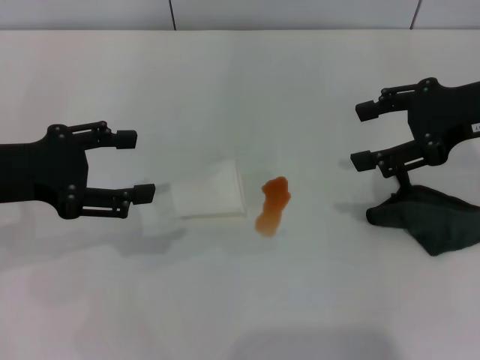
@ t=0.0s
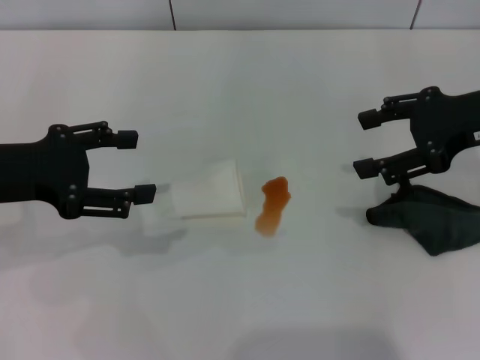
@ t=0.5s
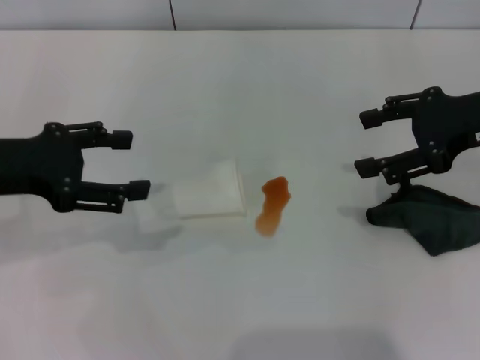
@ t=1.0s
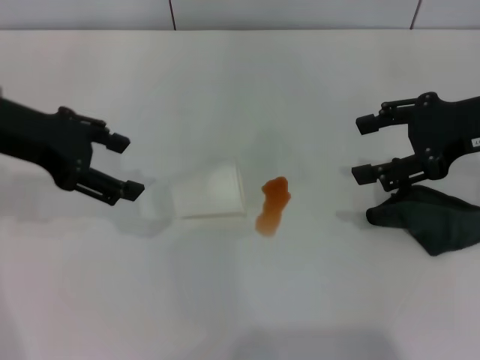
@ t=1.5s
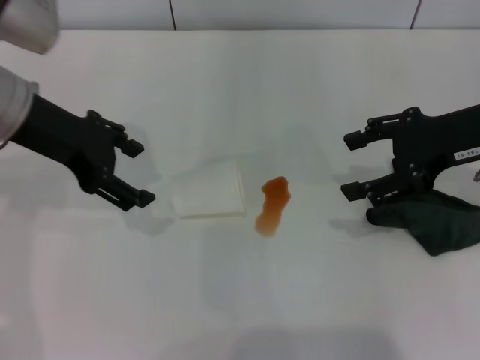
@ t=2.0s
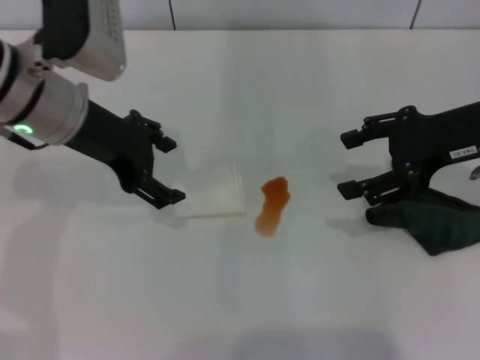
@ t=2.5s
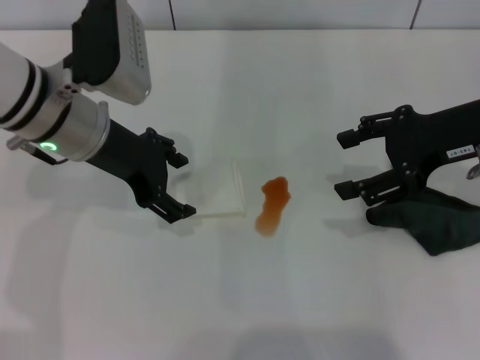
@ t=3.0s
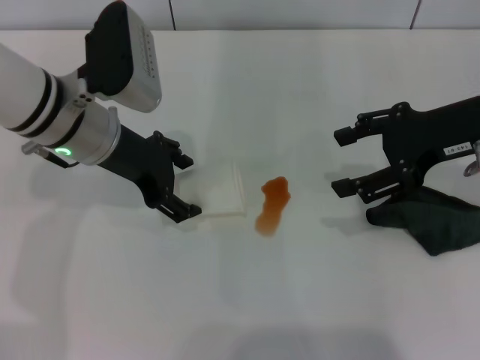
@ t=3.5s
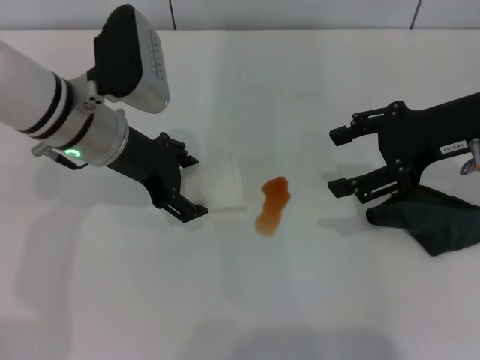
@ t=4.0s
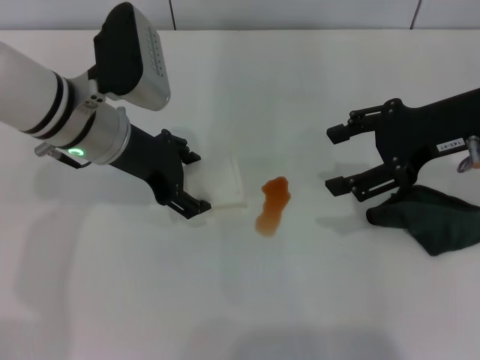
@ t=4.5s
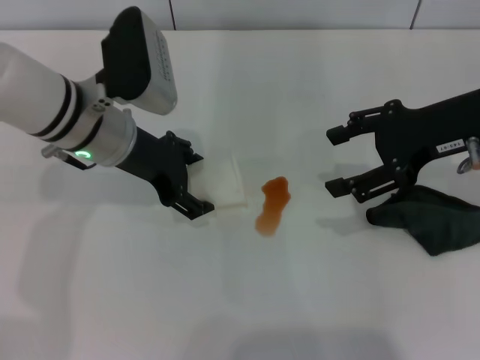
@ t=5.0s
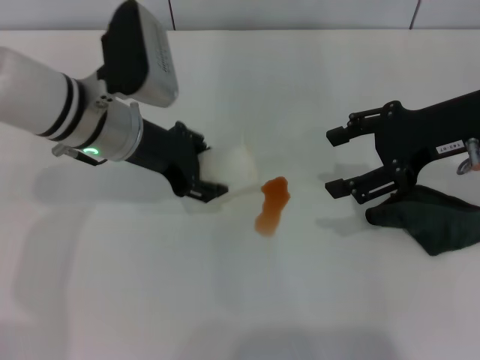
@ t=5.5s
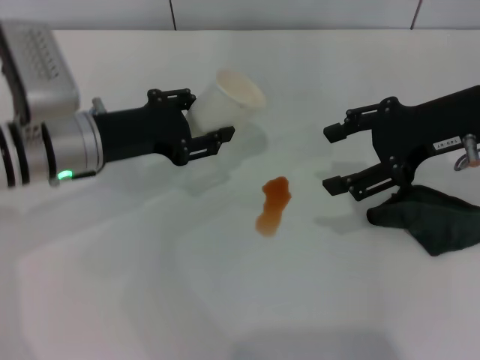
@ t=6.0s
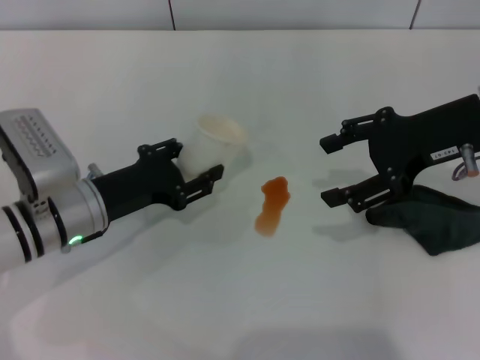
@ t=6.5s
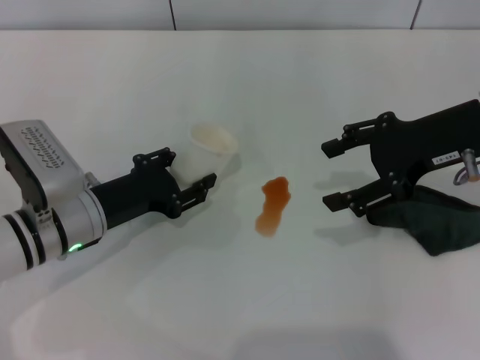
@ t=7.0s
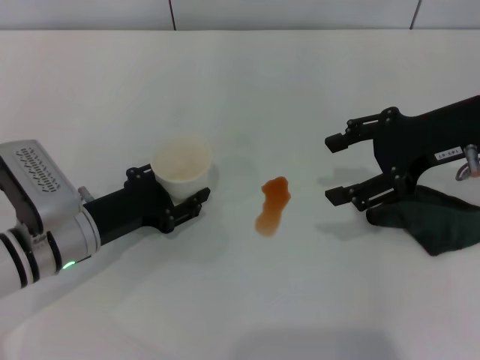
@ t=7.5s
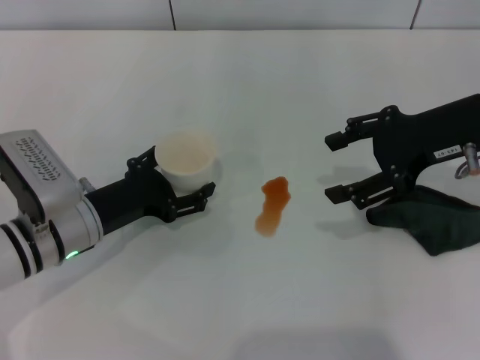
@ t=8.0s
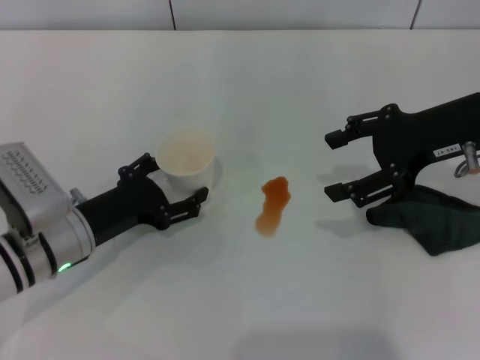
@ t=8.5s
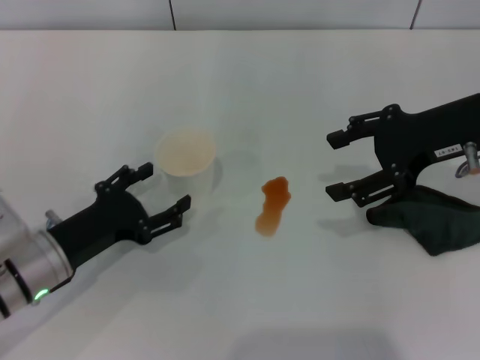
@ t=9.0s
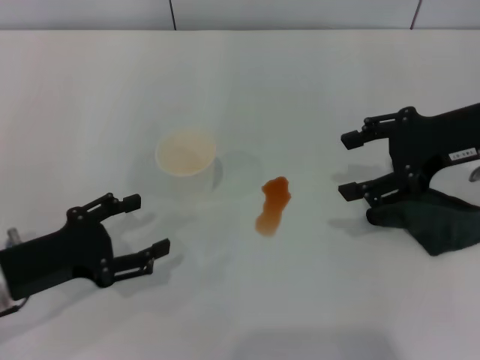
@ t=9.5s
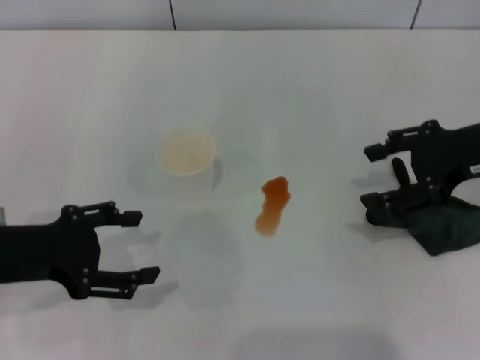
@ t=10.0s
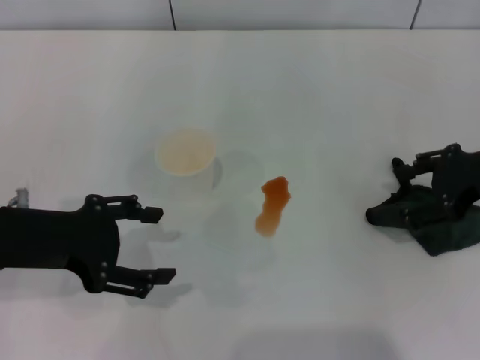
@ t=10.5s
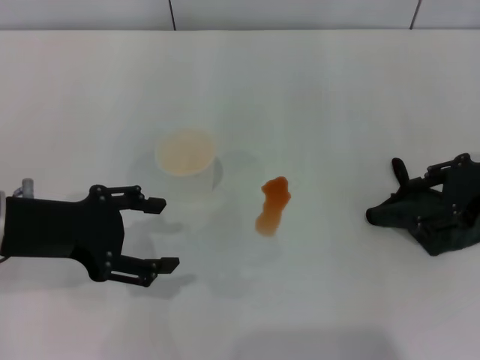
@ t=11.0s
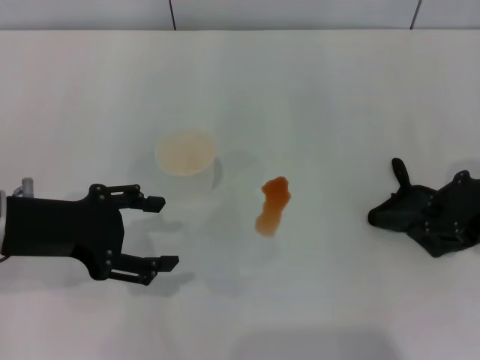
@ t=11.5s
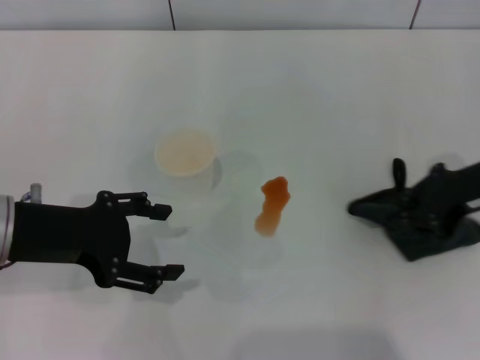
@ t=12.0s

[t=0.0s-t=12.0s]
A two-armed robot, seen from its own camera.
Step, t=0.0s to t=5.0s: Grasp the paper cup with the left gripper.
Step, t=5.5s to t=9.0s: Stand the paper cup upright with the left gripper.
Step, t=9.5s to t=11.5s: Grasp the rag with the right gripper.
t=0.0s to t=2.0s: The left gripper is displaced forward and to the right by roughly 10 cm.
t=2.0s to t=4.0s: The left gripper goes some 10 cm downward and to the right.
t=4.0s to t=6.0s: The left gripper ends up approximately 5 cm from where it was, and closes its fingers.
t=6.0s to t=8.0s: The left gripper shifts roughly 10 cm downward and backward, and opens its fingers.
t=8.0s to t=10.0s: The left gripper shifts approximately 15 cm upward, to the left and backward.
t=10.0s to t=12.0s: The right gripper closes its fingers.

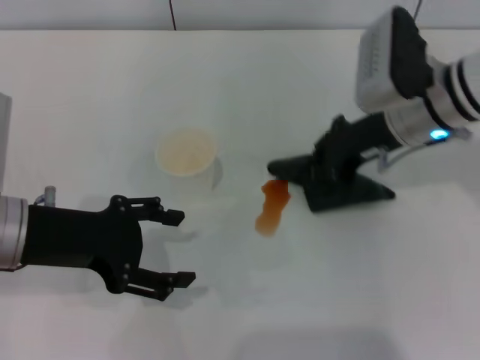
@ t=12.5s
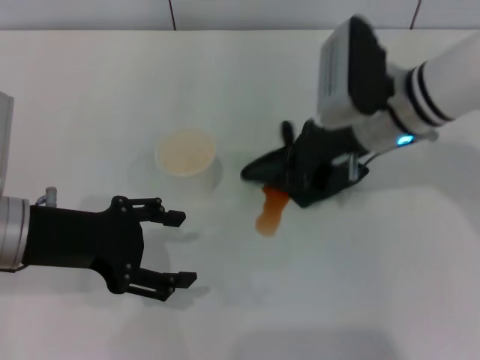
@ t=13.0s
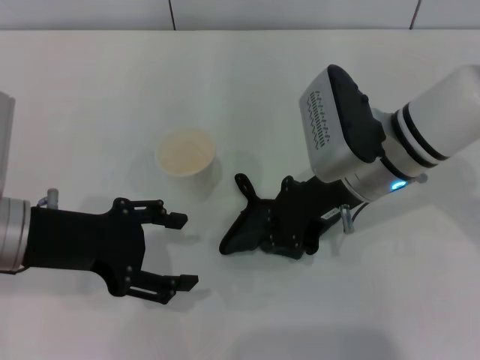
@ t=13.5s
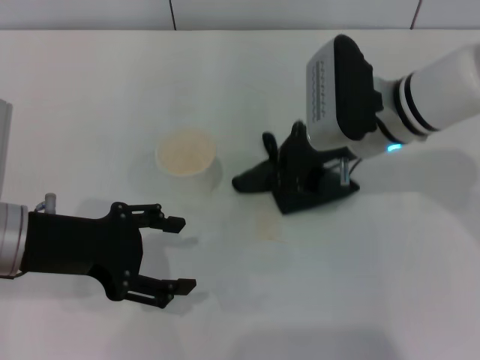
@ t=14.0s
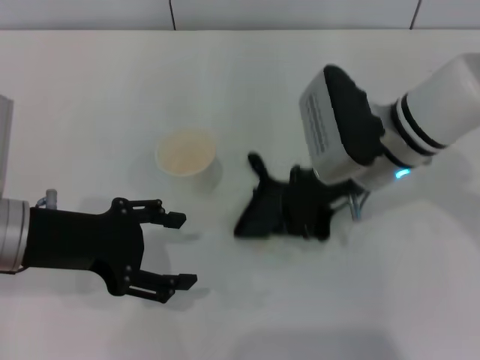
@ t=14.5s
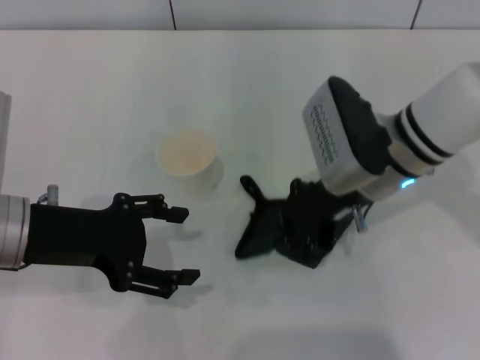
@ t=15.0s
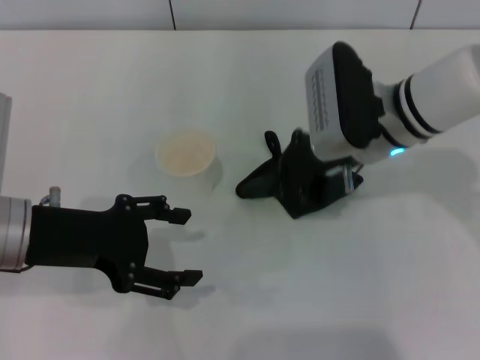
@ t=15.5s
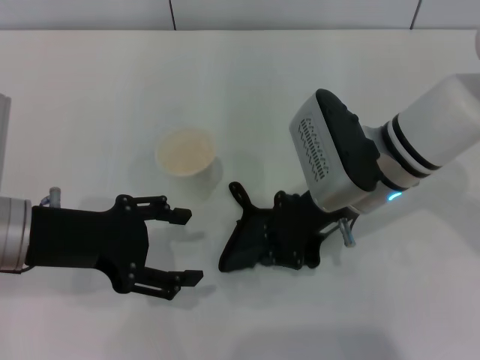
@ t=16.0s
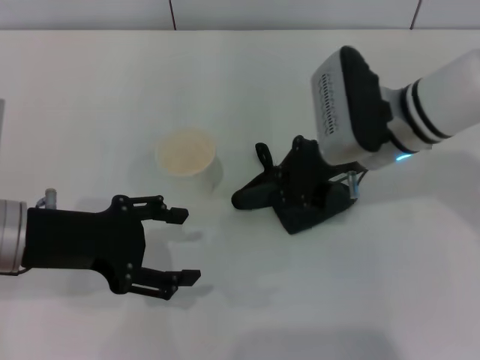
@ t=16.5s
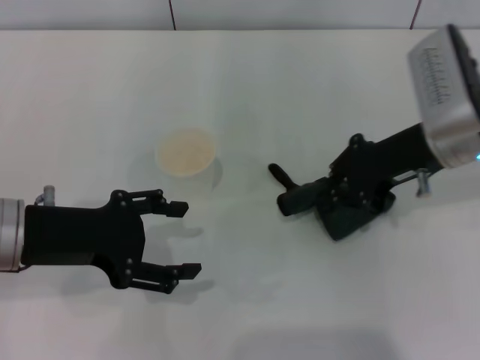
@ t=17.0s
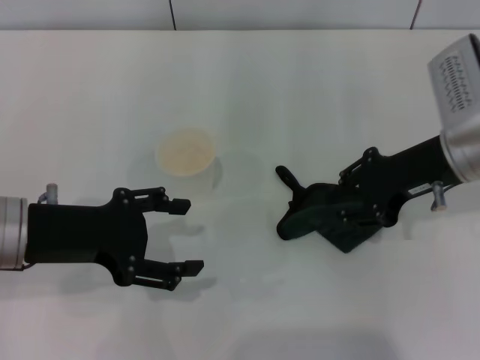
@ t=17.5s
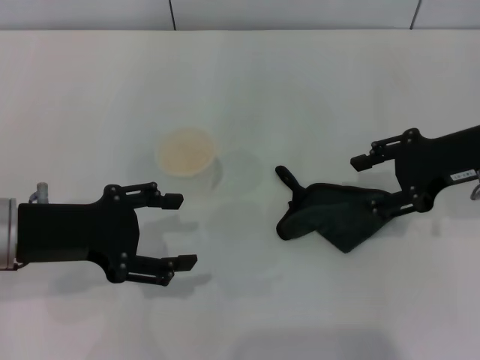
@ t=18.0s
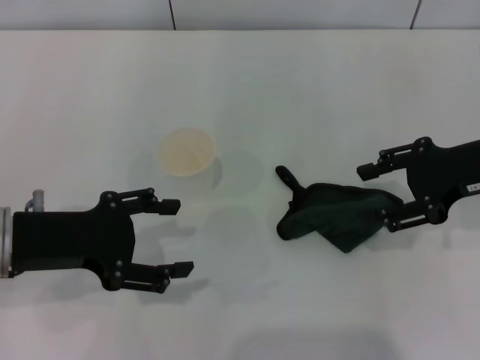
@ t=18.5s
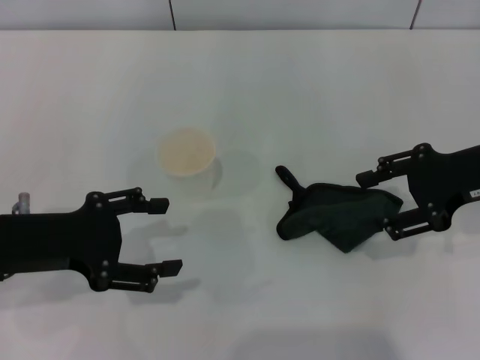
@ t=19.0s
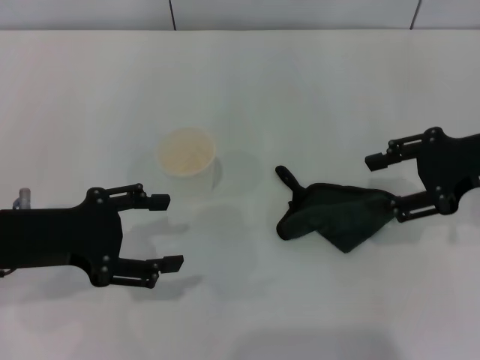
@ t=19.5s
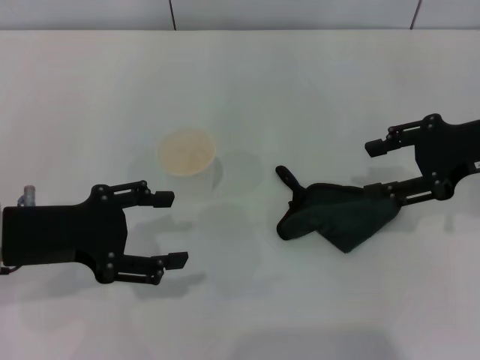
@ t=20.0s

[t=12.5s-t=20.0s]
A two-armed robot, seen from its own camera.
Step, t=12.5s to t=17.0s: Wipe the stains off the table with the right gripper.
Step, t=17.5s to t=18.0s: Place the rag on the table with the right gripper.
t=12.5s to t=14.5s: The right gripper ends up approximately 5 cm from where it was.
t=14.5s to t=16.5s: The grippers make only small movements.
t=16.5s to t=18.0s: The right gripper moves to the right, some 15 cm, and opens.
t=18.0s to t=20.0s: The grippers make only small movements.

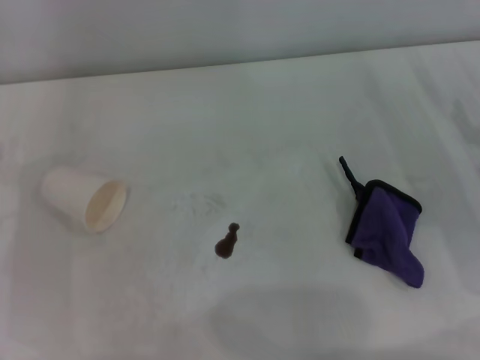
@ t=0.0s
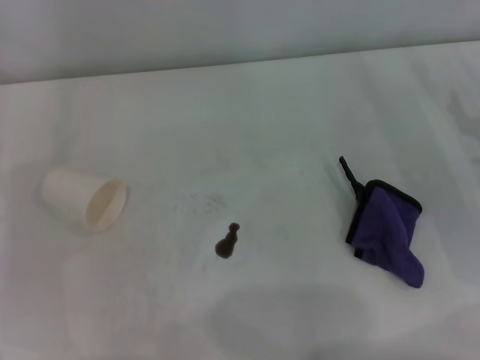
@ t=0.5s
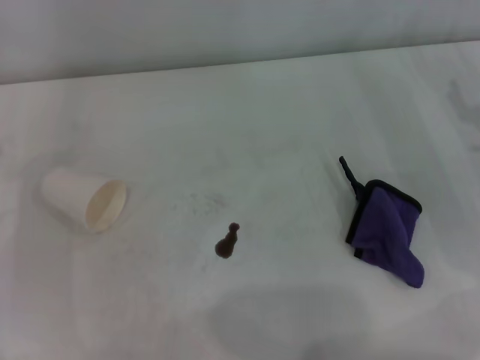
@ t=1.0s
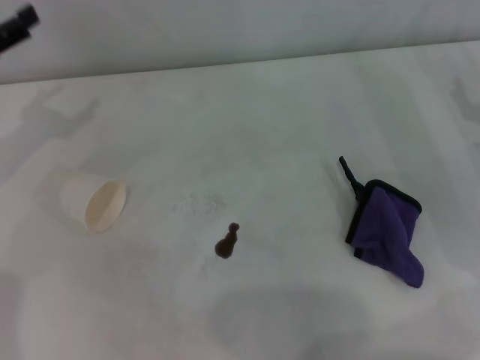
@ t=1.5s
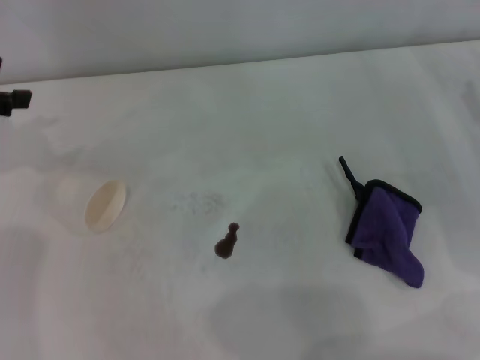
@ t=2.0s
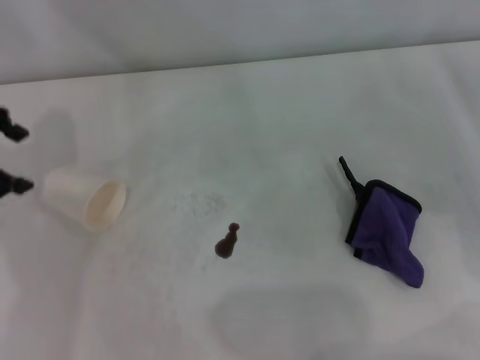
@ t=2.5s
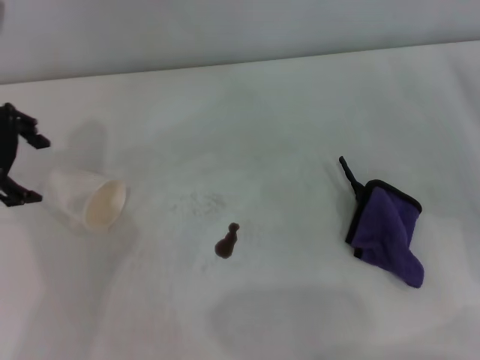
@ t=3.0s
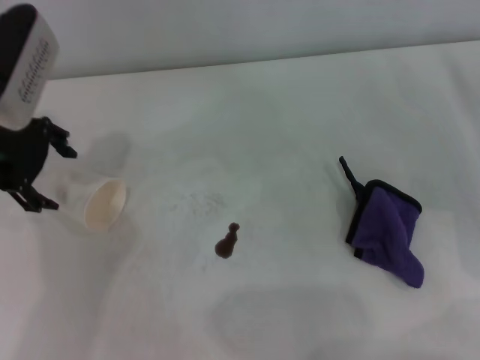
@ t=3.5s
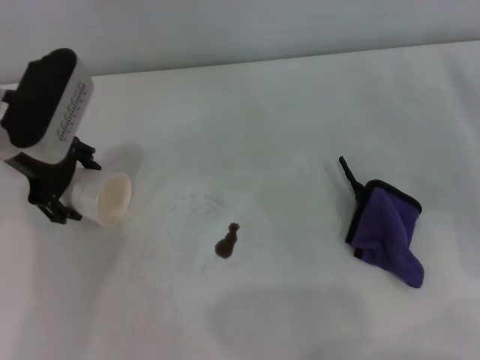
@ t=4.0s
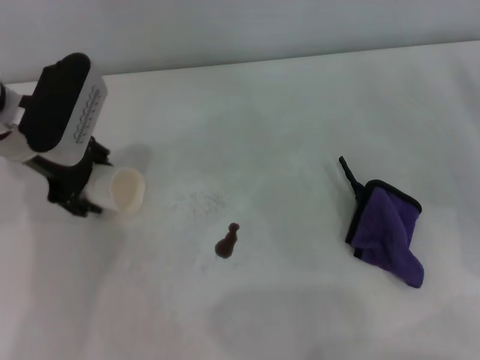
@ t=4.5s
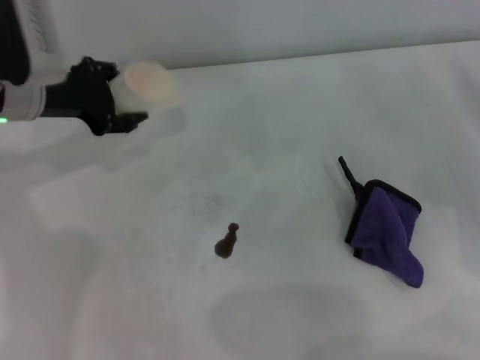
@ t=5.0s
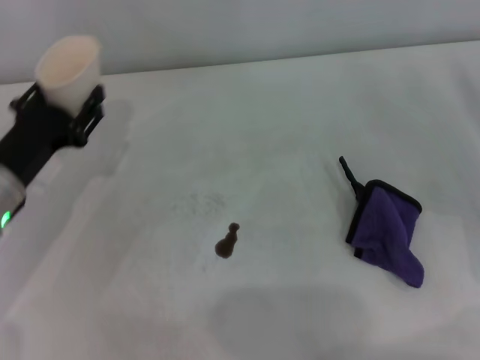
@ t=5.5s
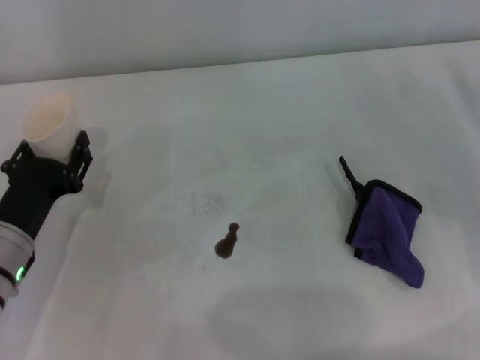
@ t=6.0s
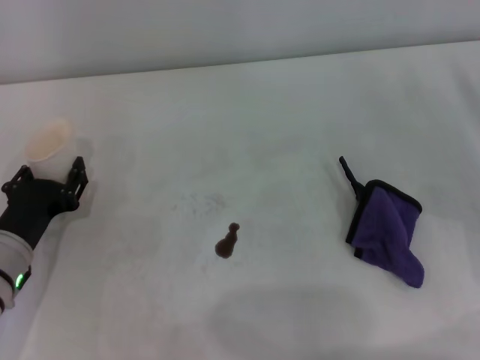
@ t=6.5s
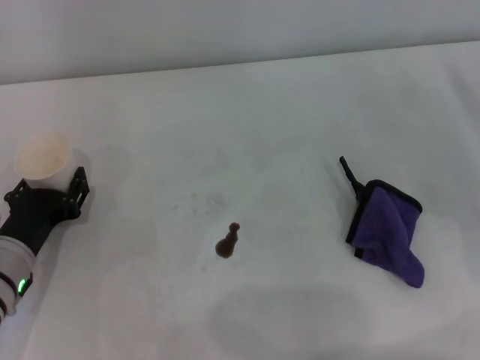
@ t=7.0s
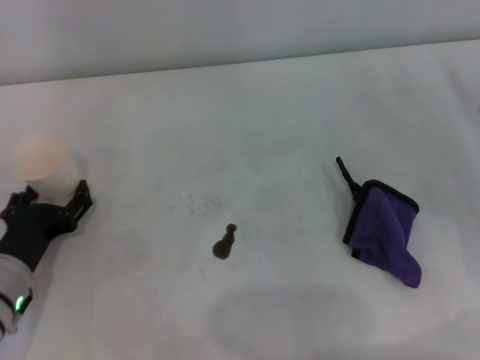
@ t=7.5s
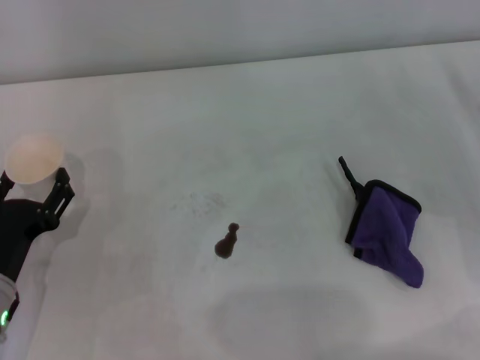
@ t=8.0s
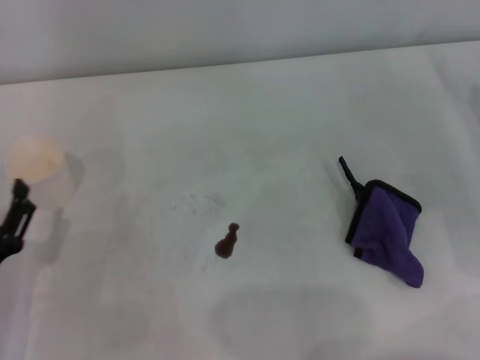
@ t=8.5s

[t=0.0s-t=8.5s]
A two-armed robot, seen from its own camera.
Step, t=0.0s to t=4.0s: Grasp the paper cup with the left gripper.
Step, t=4.5s to t=7.5s: Stand the paper cup upright with the left gripper.
t=2.0s to t=4.0s: The left gripper shifts about 15 cm to the right and downward.
t=4.0s to t=6.5s: The left gripper is displaced downward and backward by roughly 20 cm, and closes up.
t=6.5s to t=8.5s: The left gripper moves backward, roughly 10 cm, and opens its fingers.
